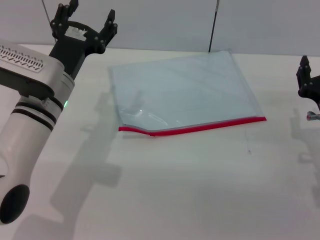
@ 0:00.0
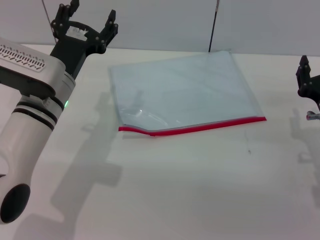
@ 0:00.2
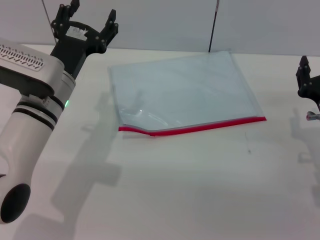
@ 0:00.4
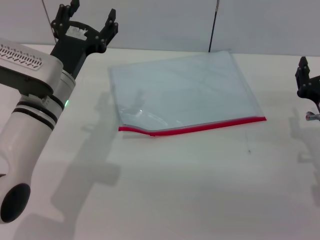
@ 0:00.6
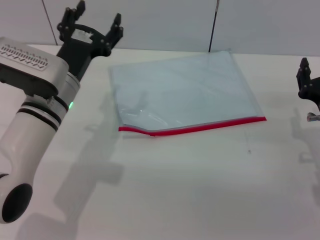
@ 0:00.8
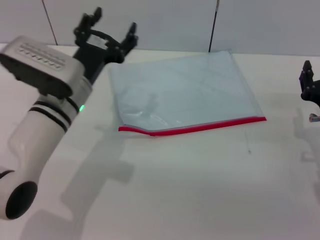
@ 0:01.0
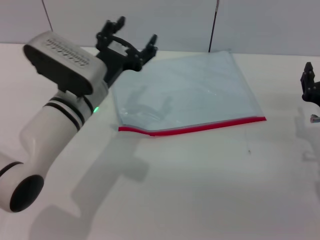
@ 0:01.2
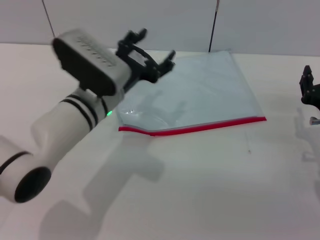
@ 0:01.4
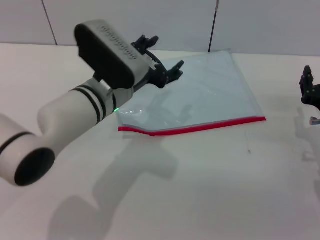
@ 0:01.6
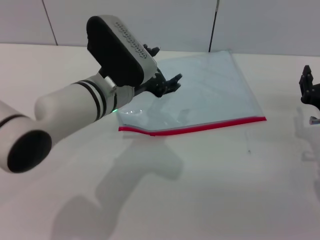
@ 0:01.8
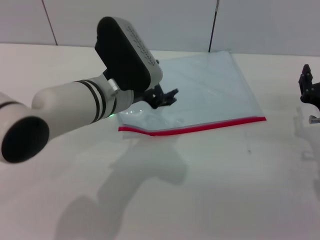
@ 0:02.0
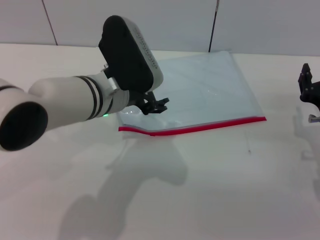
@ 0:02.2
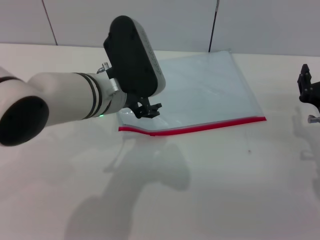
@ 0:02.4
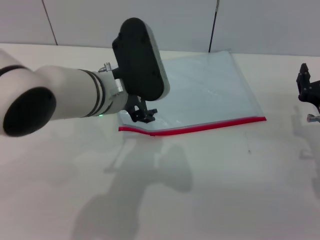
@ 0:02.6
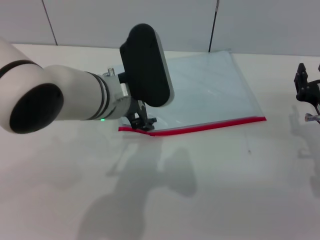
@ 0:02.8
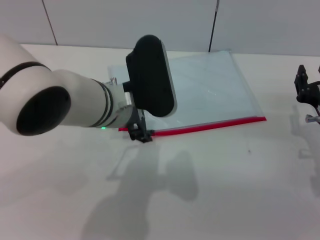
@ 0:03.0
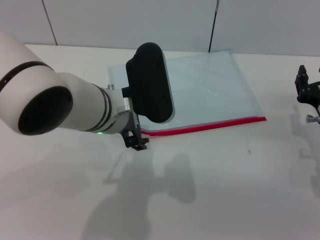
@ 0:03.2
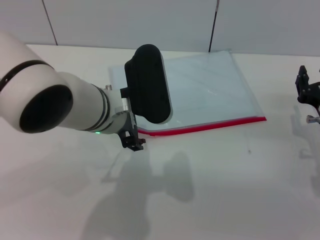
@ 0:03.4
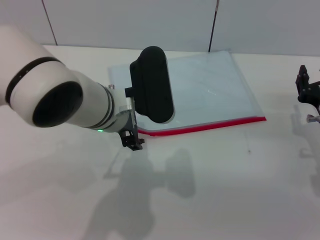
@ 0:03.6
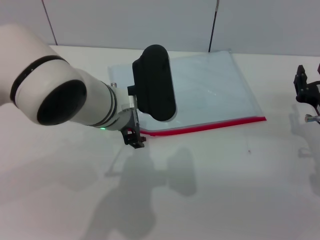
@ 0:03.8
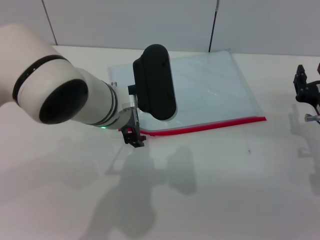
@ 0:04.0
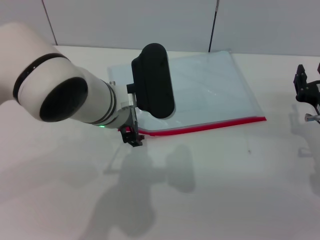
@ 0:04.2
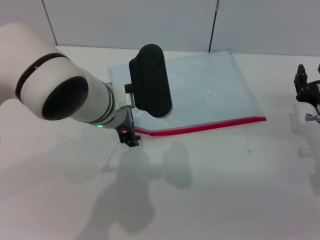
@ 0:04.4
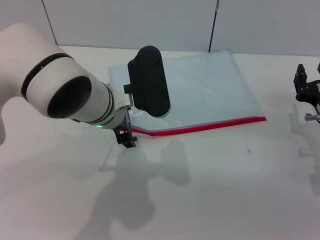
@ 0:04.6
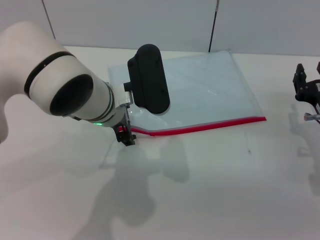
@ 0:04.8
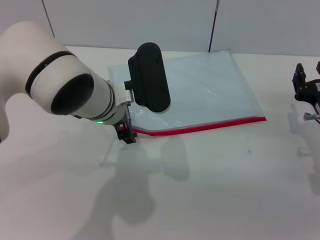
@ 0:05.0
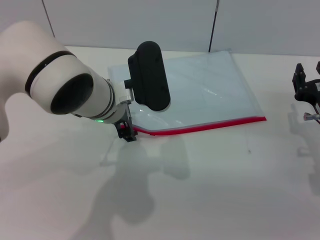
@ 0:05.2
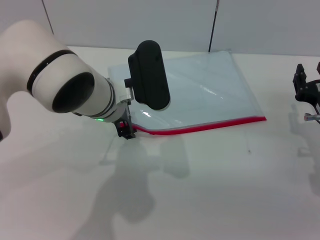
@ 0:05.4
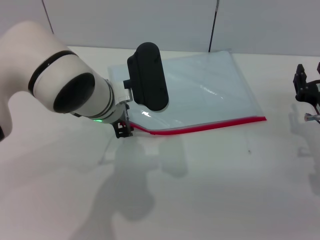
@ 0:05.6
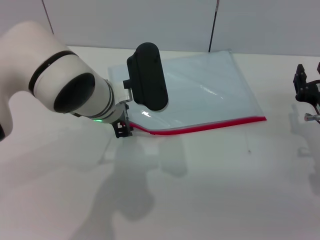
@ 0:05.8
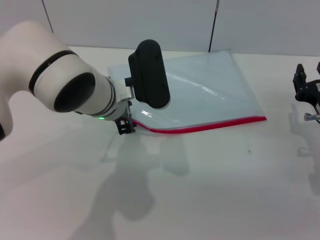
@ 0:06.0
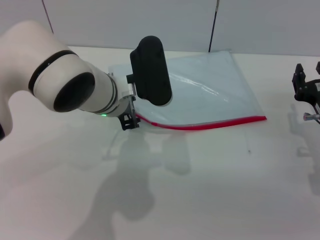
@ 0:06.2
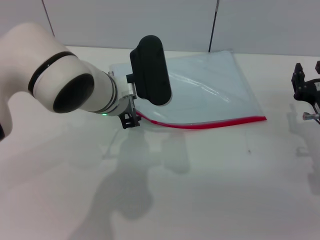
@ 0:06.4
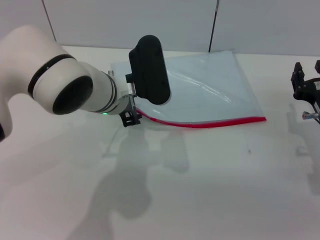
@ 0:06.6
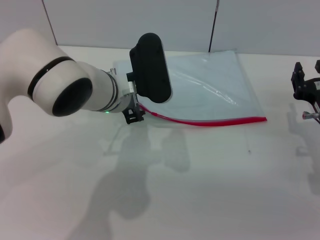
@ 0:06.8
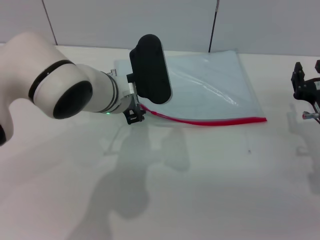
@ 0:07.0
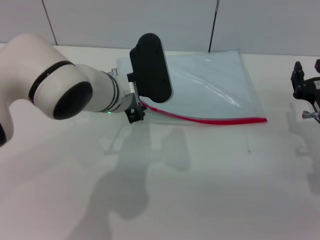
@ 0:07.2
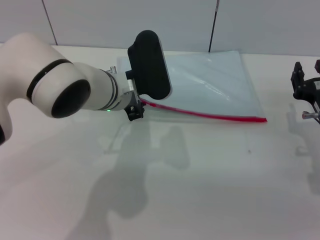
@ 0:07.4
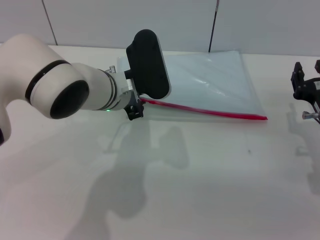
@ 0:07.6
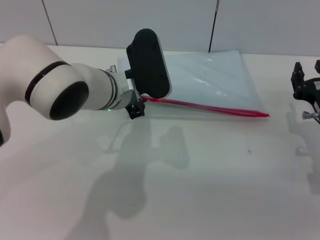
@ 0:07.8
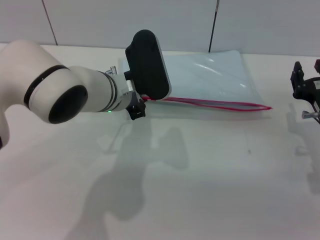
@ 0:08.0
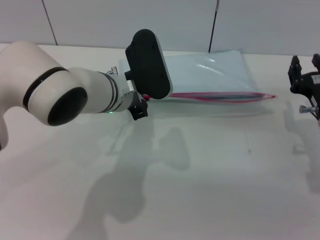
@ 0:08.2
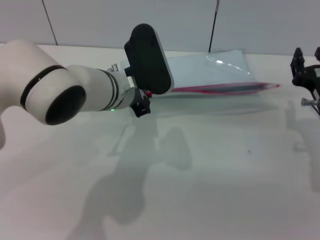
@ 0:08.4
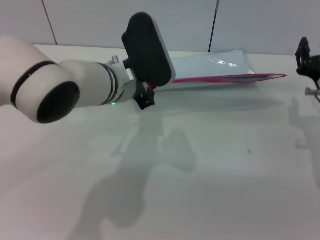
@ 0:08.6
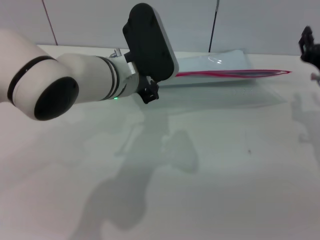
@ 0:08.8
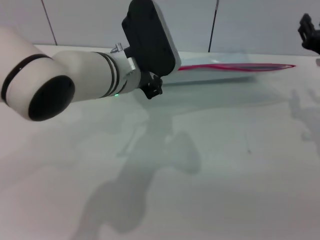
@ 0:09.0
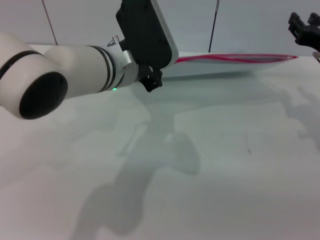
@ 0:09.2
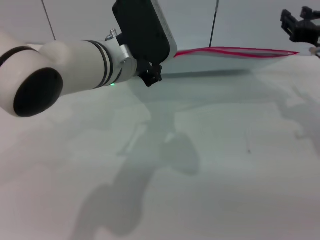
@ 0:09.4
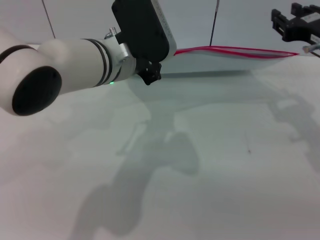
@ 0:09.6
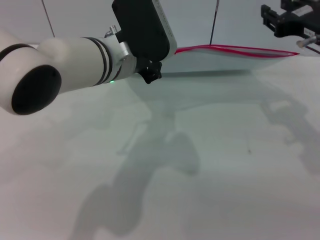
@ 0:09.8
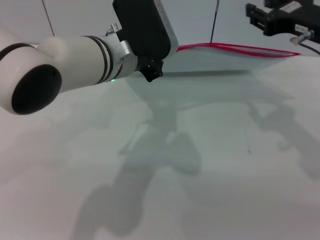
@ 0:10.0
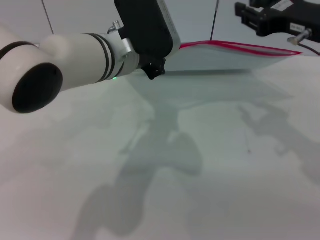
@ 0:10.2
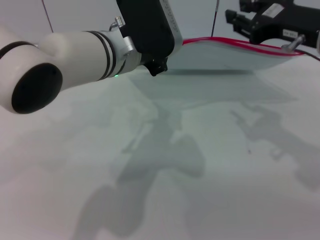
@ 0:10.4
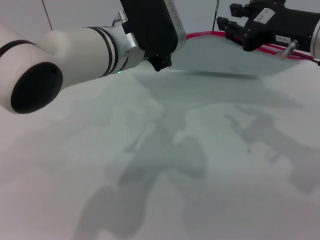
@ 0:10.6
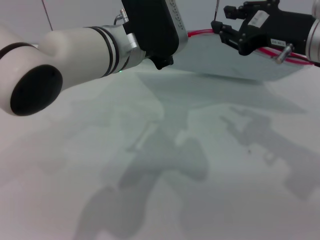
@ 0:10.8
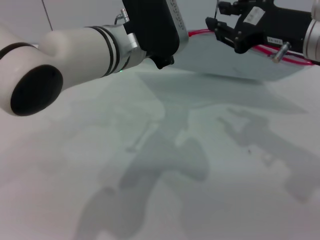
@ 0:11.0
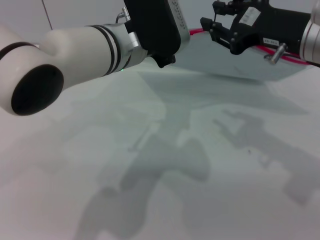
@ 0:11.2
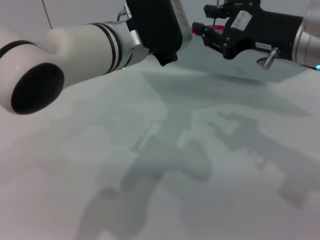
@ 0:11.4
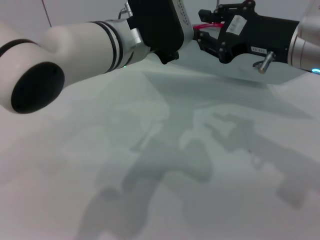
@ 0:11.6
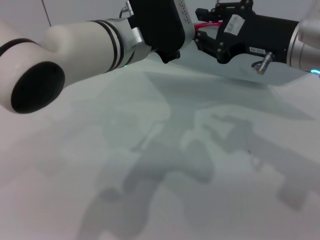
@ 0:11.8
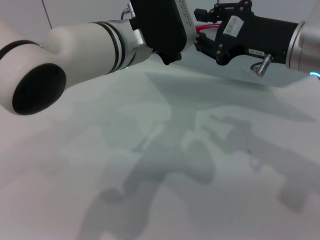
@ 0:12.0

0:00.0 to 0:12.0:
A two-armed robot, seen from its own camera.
Step, 0:00.0 to 0:10.6: Pick up the transparent plastic bag with the left gripper.
0:00.0 to 0:01.6: The left gripper moves to the right, some 5 cm.
0:01.6 to 0:03.0: The left gripper changes place by approximately 5 cm.
0:03.0 to 0:04.4: The grippers make only small movements.
0:04.4 to 0:06.0: The left gripper closes up.
0:06.0 to 0:07.6: There are only small adjustments of the grippers.
0:07.6 to 0:09.0: The right gripper moves upward, roughly 5 cm.
0:09.0 to 0:10.4: The right gripper moves upward, approximately 10 cm.

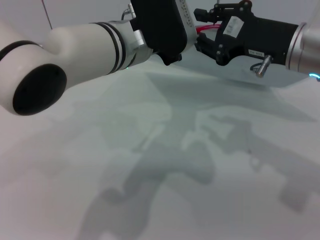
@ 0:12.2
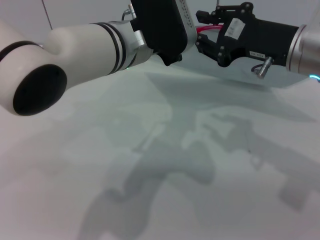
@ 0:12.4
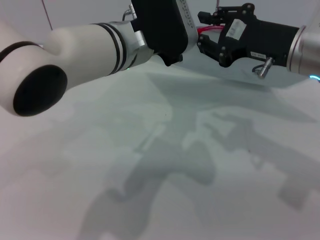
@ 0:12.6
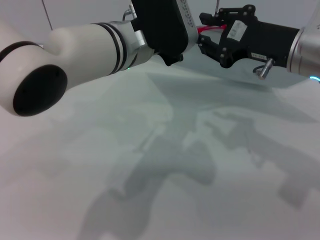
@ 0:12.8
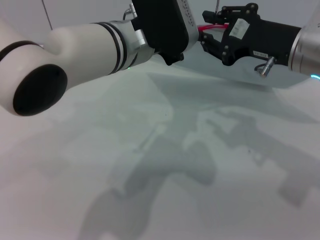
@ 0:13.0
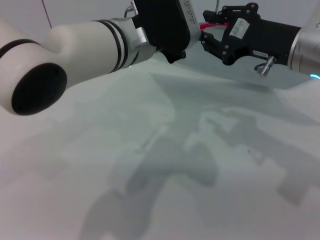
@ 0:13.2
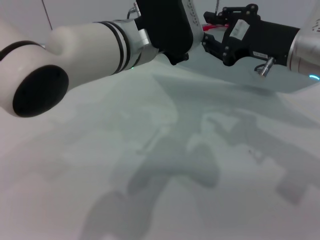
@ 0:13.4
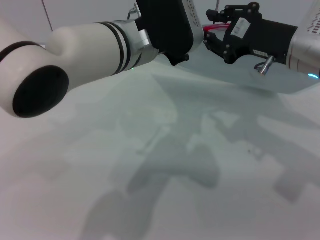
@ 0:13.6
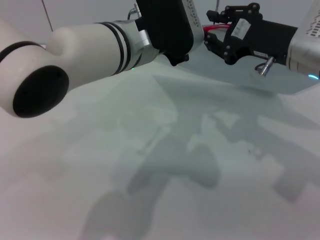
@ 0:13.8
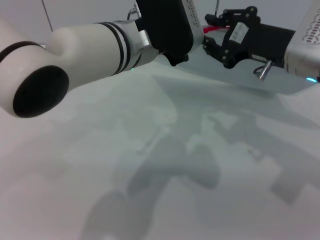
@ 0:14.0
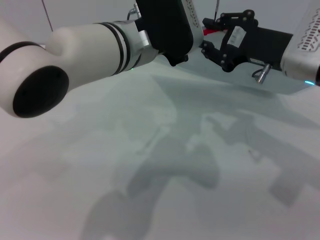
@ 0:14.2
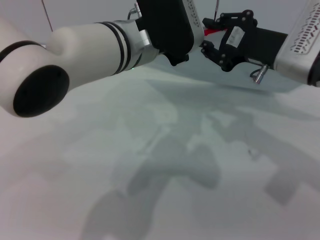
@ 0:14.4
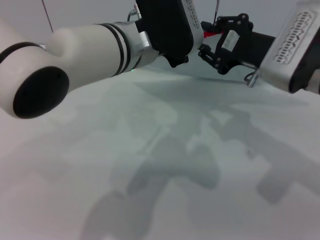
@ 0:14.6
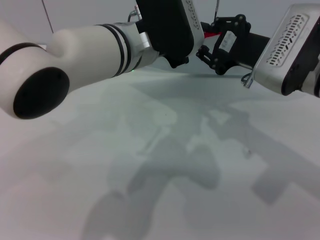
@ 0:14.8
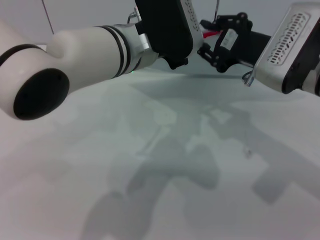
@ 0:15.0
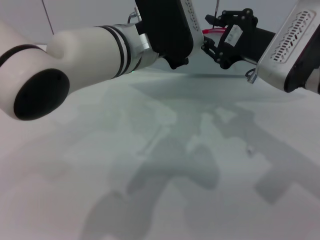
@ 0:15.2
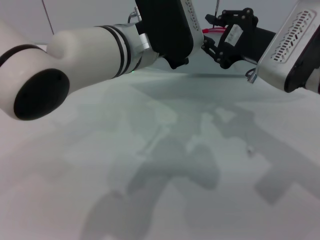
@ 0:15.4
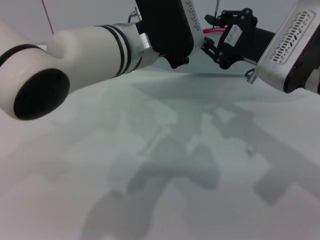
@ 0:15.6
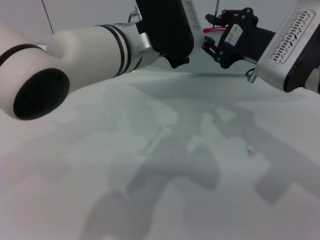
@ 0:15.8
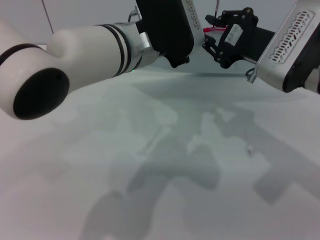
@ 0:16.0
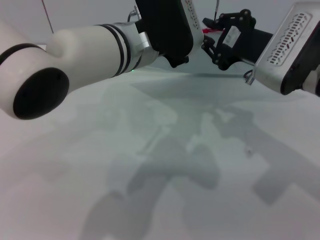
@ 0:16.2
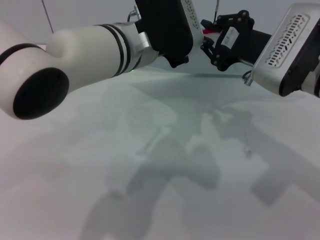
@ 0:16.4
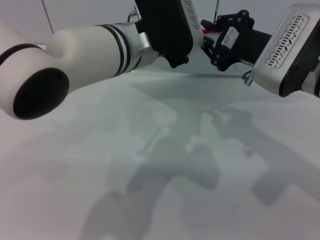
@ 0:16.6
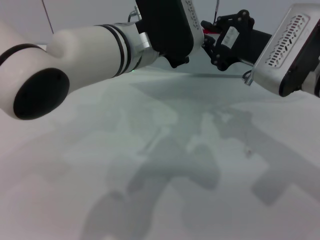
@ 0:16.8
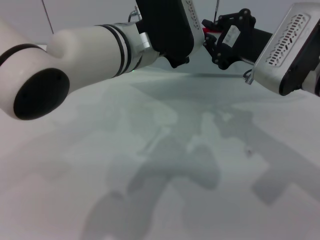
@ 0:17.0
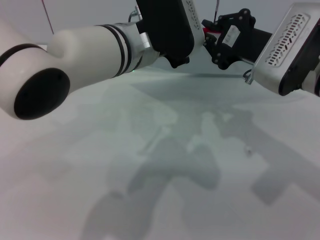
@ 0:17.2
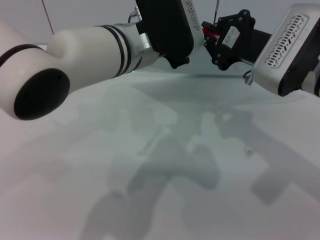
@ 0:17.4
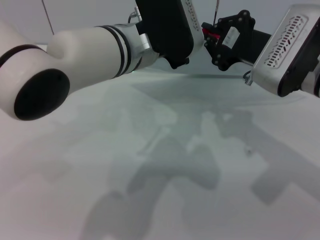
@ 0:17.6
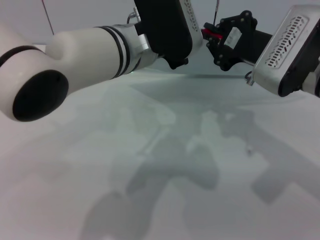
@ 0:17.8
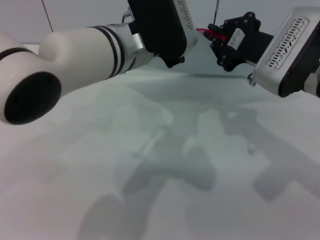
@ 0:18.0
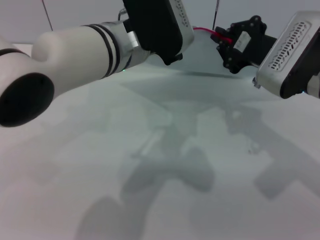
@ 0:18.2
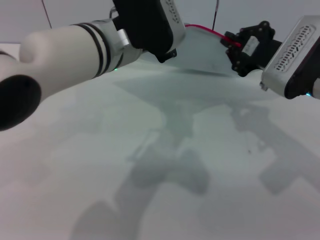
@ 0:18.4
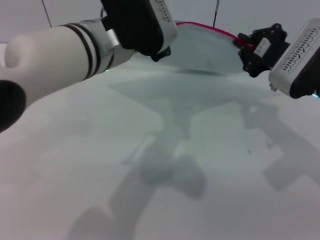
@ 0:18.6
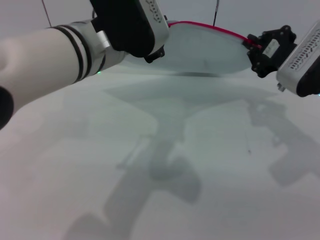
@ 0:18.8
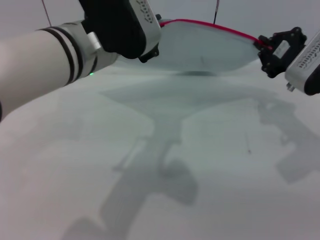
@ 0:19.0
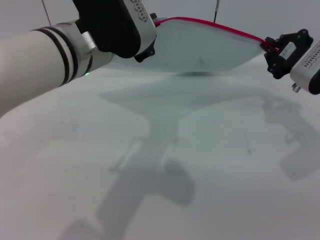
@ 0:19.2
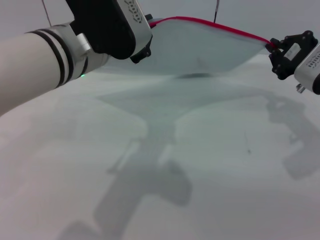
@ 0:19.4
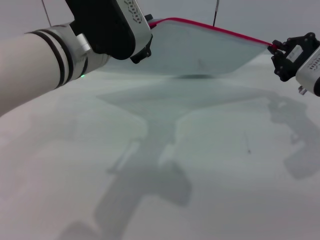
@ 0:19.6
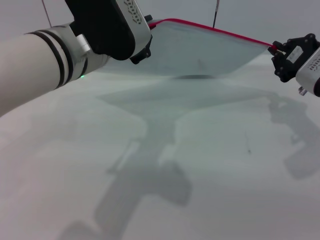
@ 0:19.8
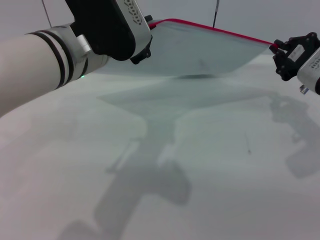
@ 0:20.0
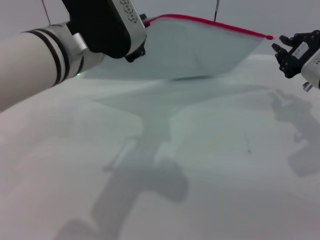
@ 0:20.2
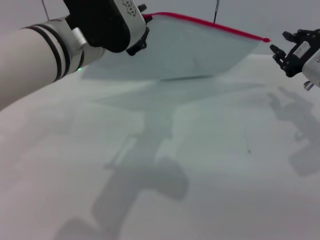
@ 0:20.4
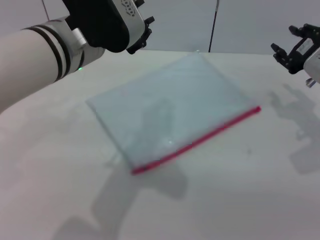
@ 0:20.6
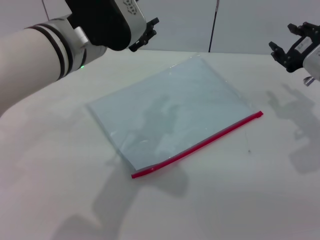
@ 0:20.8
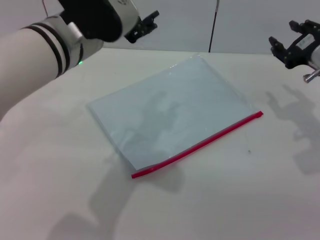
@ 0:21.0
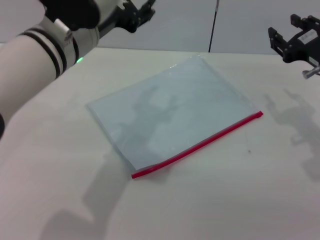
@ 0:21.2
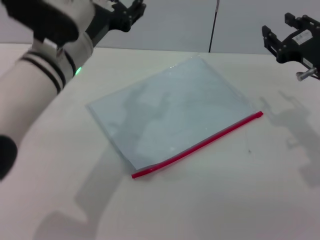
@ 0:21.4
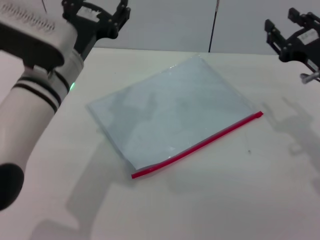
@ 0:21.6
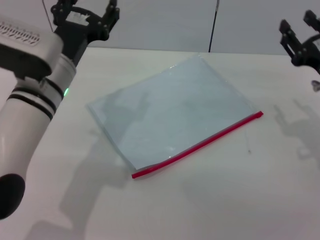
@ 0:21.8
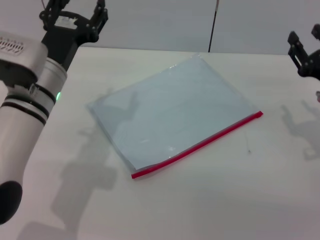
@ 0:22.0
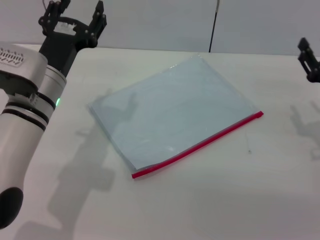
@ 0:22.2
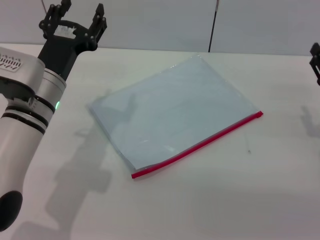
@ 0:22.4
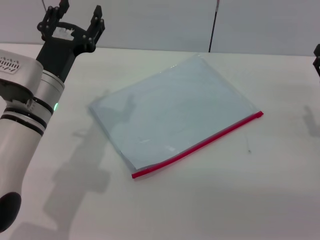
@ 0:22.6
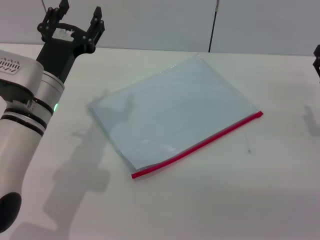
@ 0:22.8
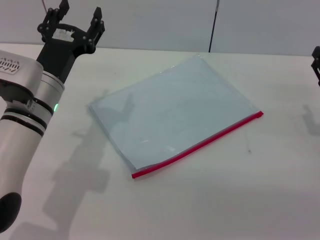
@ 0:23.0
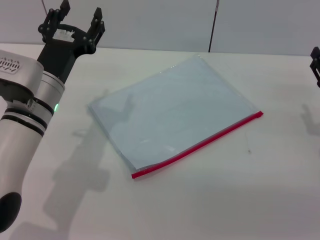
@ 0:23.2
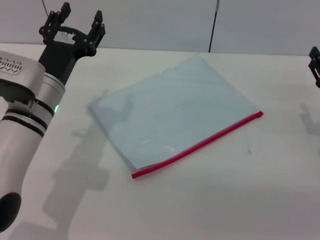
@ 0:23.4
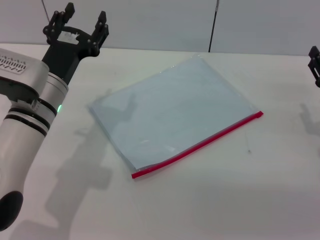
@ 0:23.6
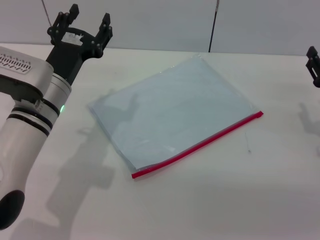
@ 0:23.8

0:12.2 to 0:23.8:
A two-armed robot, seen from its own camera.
Step, 0:12.2 to 0:20.0: Pulling up the zipper on the transparent plastic bag with the right gripper to close it.
Step, 0:20.4 to 0:20.8: Place the transparent plastic bag.
0:12.2 to 0:15.0: The grippers make only small movements.
0:15.0 to 0:18.0: Both grippers stay about where they are.
0:18.0 to 0:19.4: The left gripper moves roughly 5 cm, while the right gripper travels to the right by some 10 cm.
0:19.4 to 0:21.0: The right gripper opens up; the left gripper opens.
0:21.0 to 0:22.4: The left gripper shifts approximately 15 cm downward and to the left. Meanwhile the right gripper heads downward and backward, covering about 10 cm.
0:22.4 to 0:23.8: Both grippers stay about where they are.
